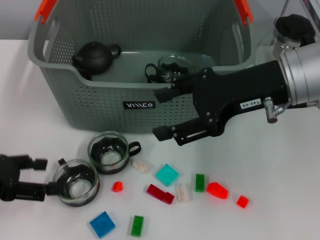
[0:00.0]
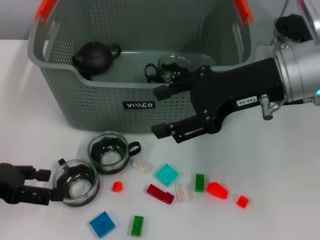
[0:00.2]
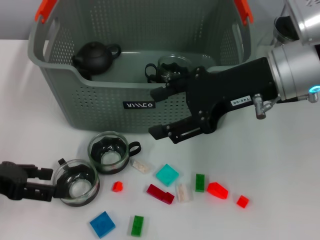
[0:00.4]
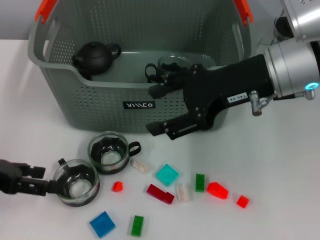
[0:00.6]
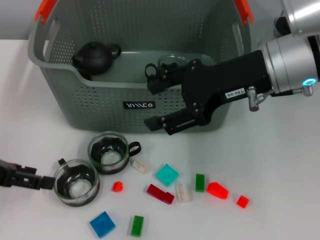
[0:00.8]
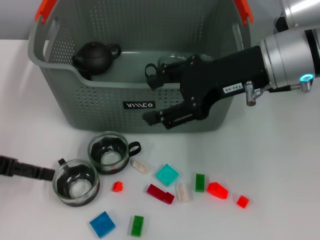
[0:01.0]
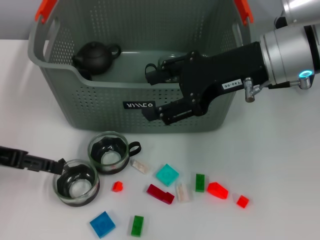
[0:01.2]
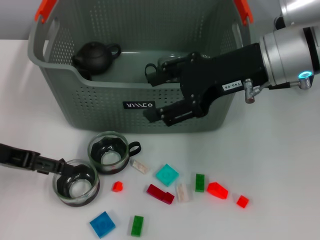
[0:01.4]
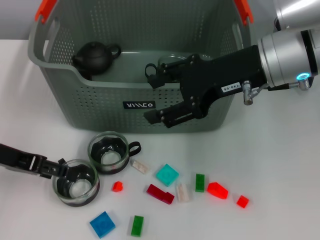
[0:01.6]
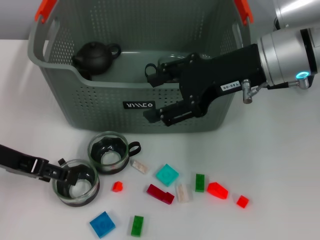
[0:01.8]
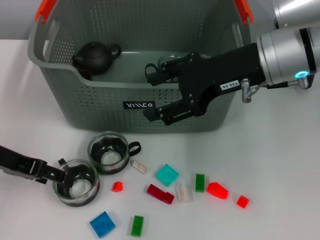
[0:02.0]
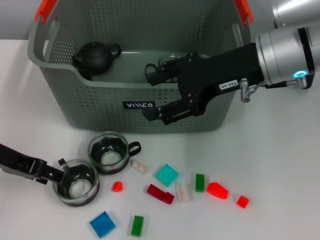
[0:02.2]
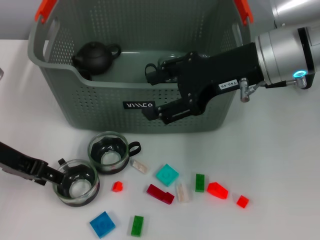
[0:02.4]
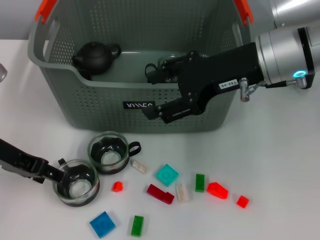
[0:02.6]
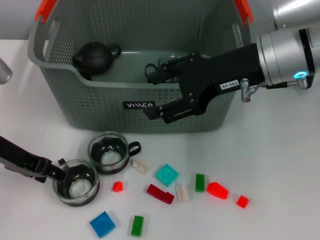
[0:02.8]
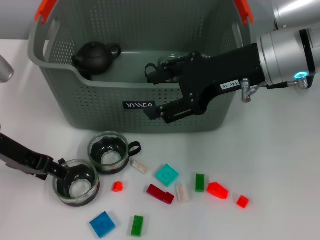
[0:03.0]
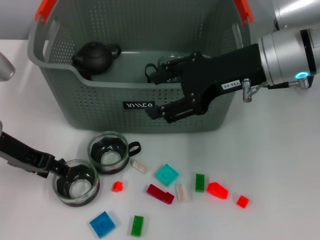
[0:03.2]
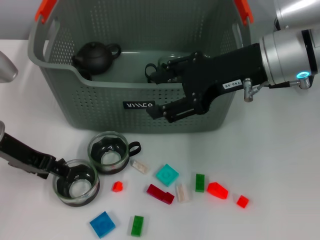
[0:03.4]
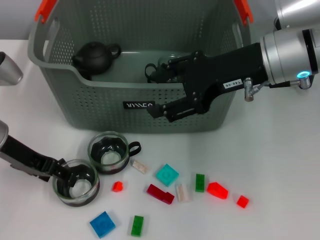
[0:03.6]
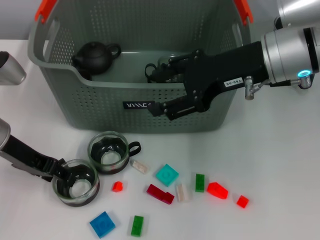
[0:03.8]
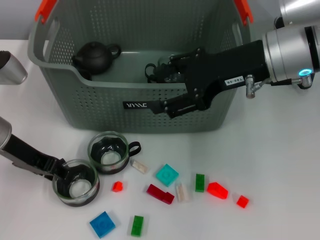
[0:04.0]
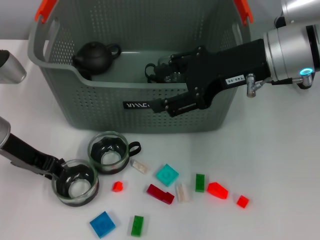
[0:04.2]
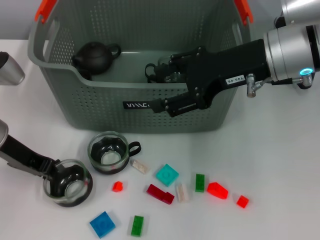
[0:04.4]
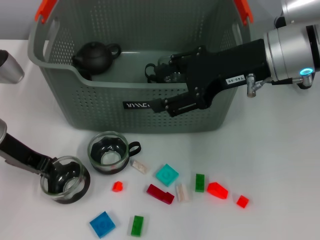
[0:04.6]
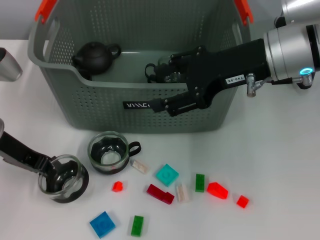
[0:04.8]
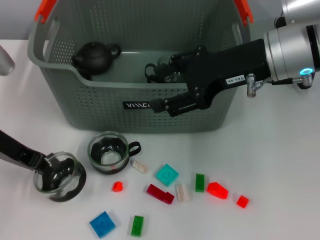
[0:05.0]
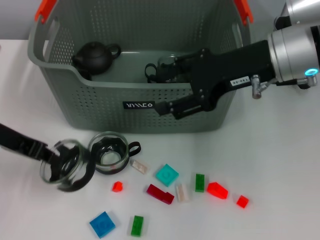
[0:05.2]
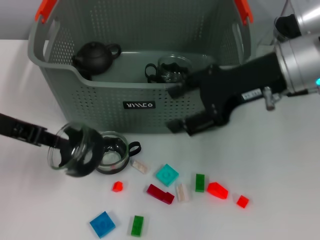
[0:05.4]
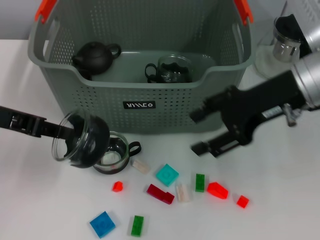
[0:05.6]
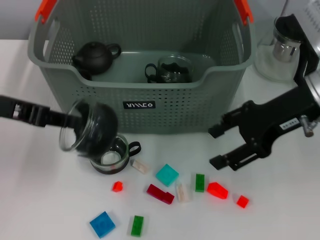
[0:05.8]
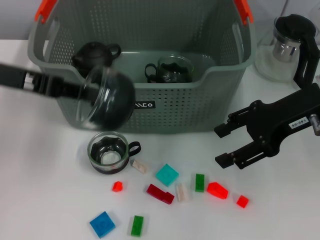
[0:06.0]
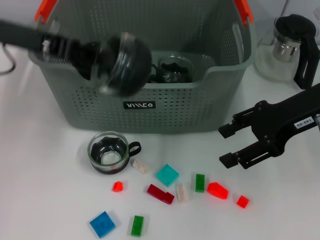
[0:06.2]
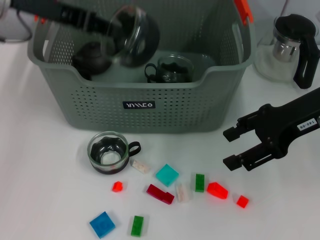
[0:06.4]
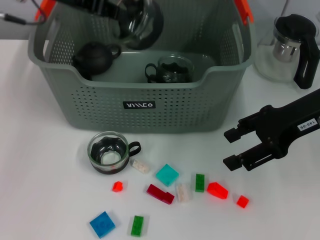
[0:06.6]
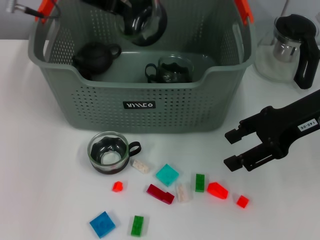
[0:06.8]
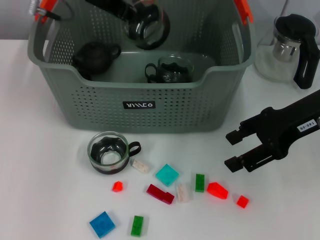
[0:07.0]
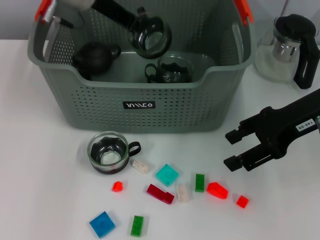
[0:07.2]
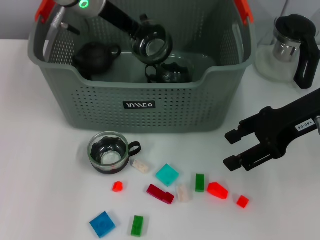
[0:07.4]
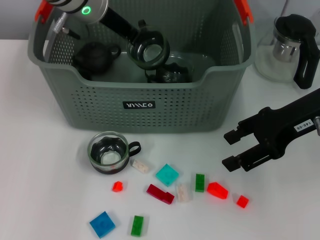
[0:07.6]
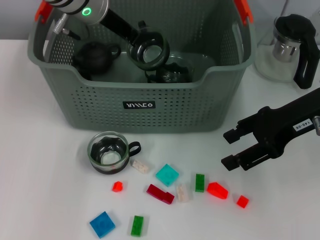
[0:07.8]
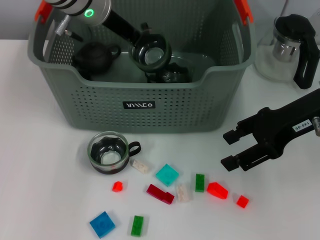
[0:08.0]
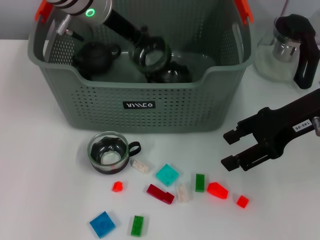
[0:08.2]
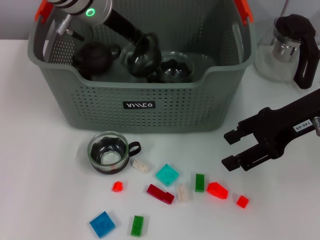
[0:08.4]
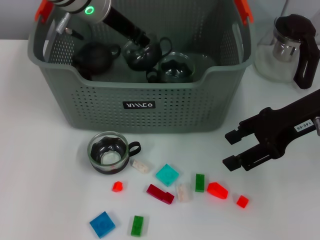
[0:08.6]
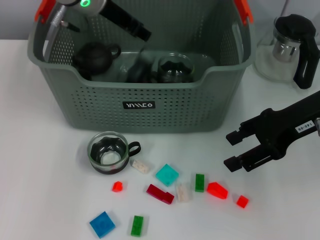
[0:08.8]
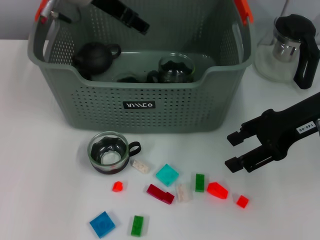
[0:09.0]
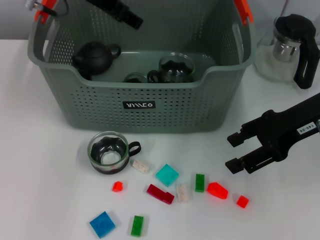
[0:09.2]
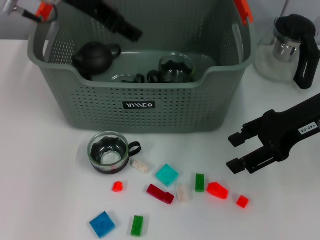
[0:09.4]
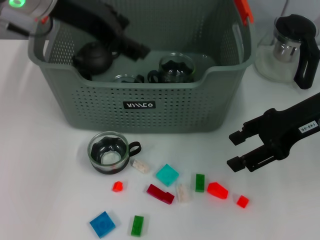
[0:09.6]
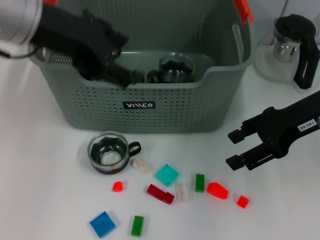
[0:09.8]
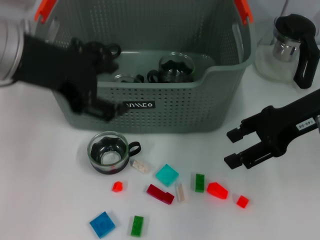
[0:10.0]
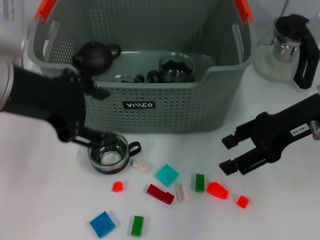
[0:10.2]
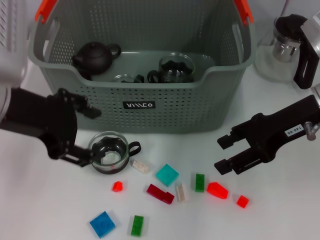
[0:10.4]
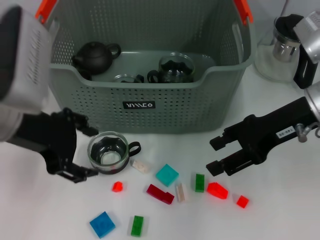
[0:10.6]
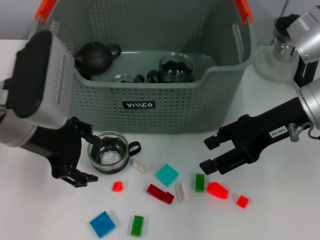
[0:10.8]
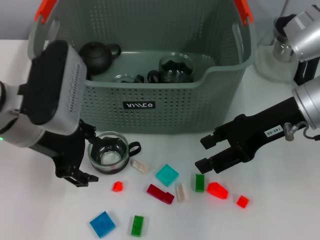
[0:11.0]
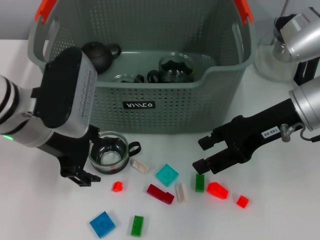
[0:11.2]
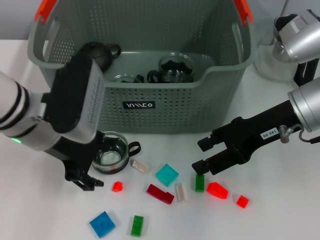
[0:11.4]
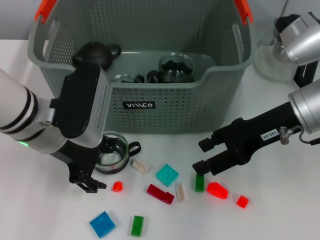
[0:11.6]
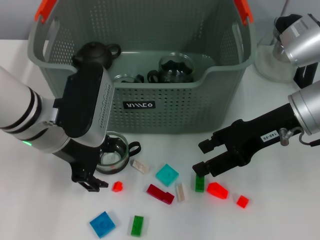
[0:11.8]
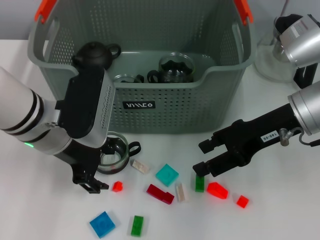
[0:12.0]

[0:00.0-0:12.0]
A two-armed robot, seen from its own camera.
Task of the whole recording: pick up the teacup on the table and place it into the storage bin, pick up the block on the table and place it into the storage bin.
Step, 0.0 to 4.4 s: Grasp the cup with left gripper.
Step, 4.6 to 8.8 s: Place the cup in the storage box with left gripper.
0.0 to 1.6 s: The left gripper is displaced forward by approximately 5 cm.
1.6 to 3.0 s: The grippers make only small movements.
3.0 to 4.4 s: The left gripper closes up.
4.4 to 6.0 s: The left gripper shifts approximately 10 cm upward; the right gripper shifts roughly 5 cm to the right.
6.0 to 7.6 s: The left gripper shifts some 20 cm forward and to the right.
7.6 to 9.0 s: The left gripper opens.
9.0 to 10.4 s: The left gripper is displaced backward and to the left by about 20 cm.
10.4 to 12.0 s: The left gripper shifts some 10 cm downward.

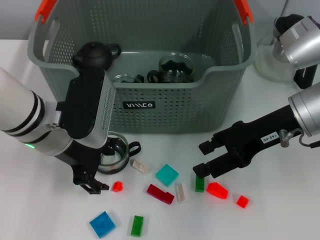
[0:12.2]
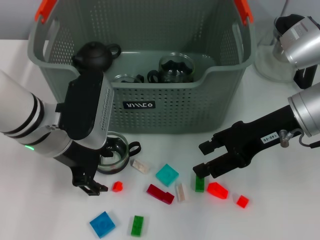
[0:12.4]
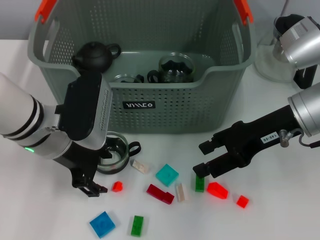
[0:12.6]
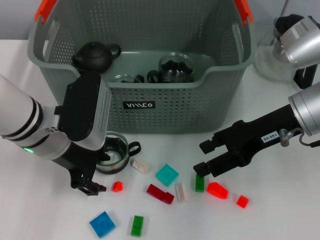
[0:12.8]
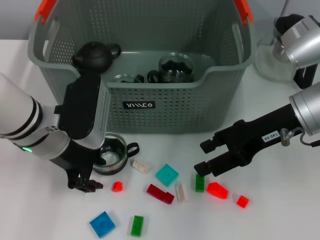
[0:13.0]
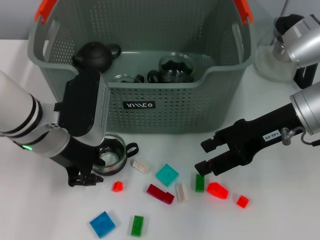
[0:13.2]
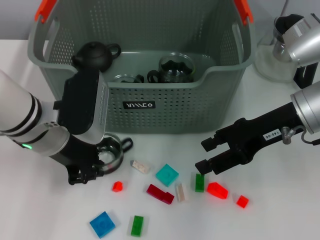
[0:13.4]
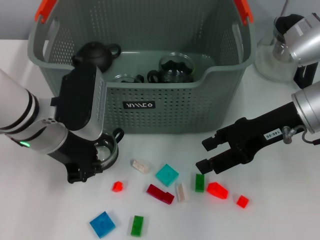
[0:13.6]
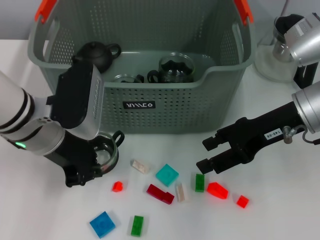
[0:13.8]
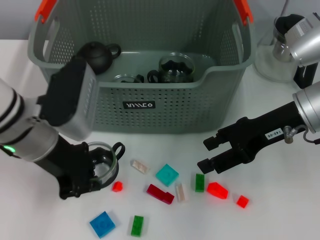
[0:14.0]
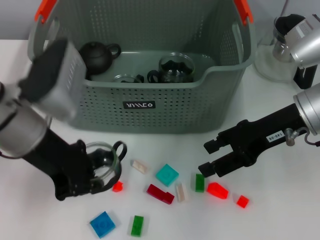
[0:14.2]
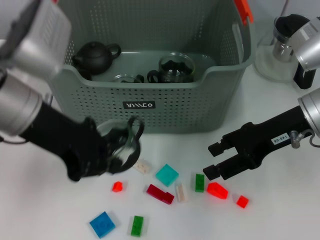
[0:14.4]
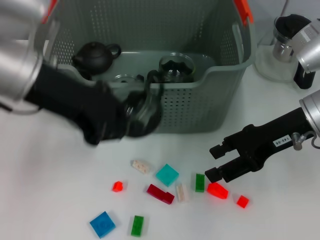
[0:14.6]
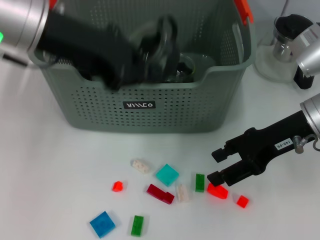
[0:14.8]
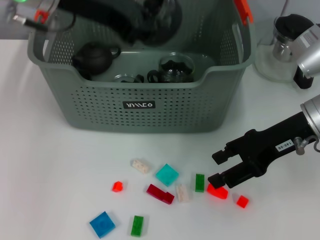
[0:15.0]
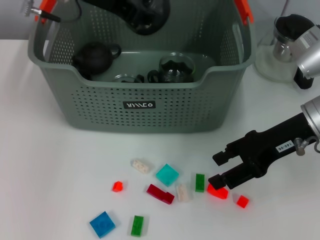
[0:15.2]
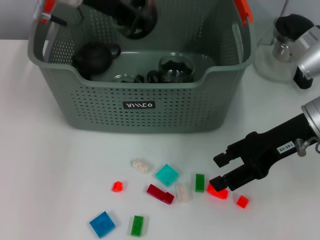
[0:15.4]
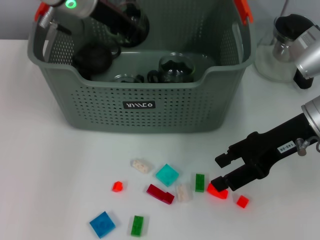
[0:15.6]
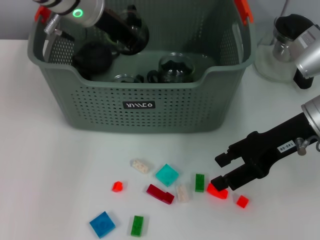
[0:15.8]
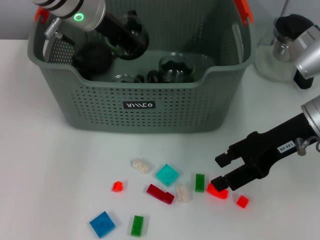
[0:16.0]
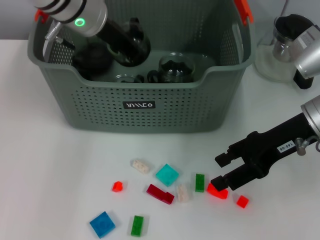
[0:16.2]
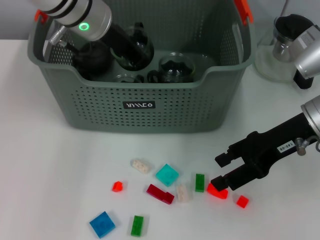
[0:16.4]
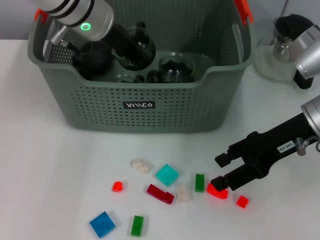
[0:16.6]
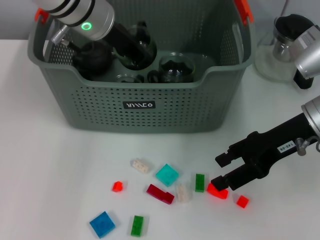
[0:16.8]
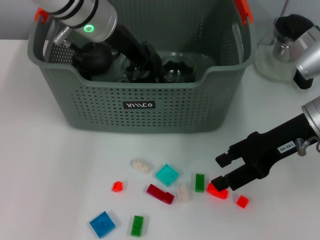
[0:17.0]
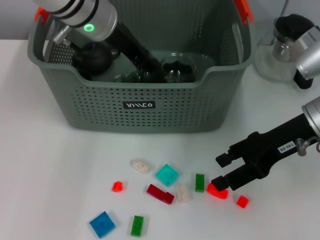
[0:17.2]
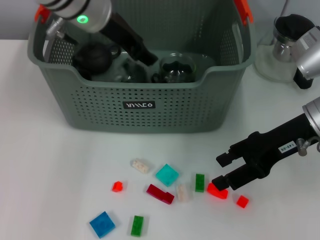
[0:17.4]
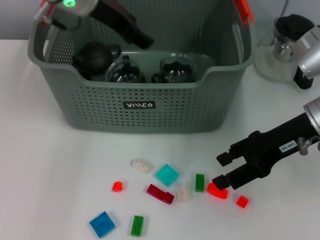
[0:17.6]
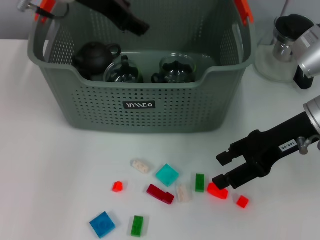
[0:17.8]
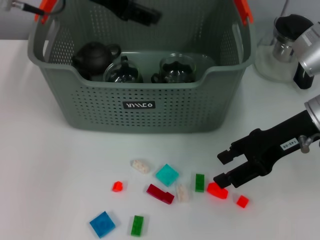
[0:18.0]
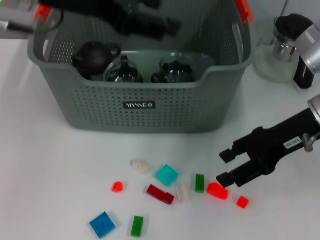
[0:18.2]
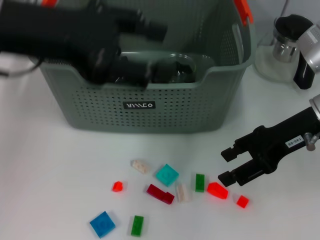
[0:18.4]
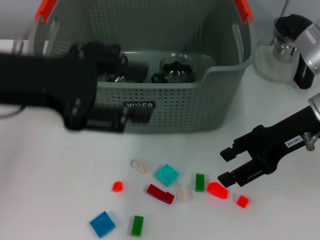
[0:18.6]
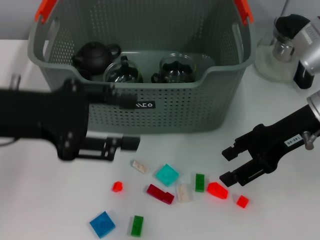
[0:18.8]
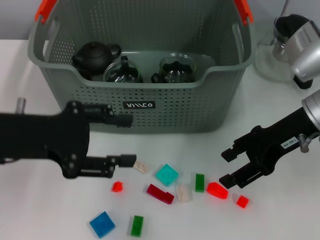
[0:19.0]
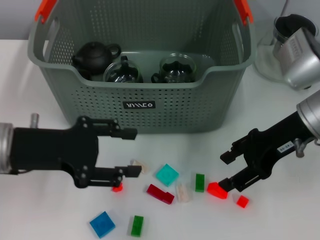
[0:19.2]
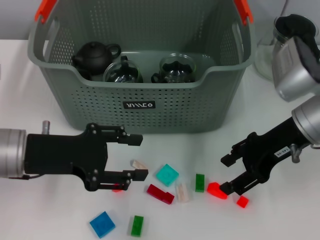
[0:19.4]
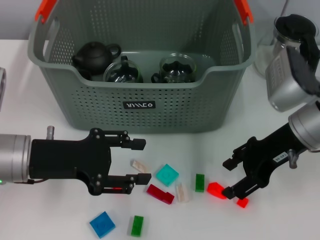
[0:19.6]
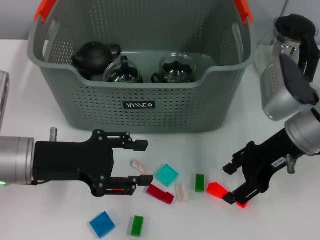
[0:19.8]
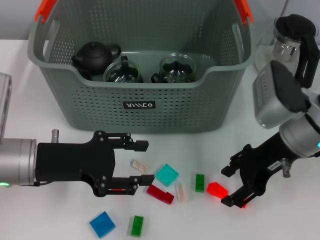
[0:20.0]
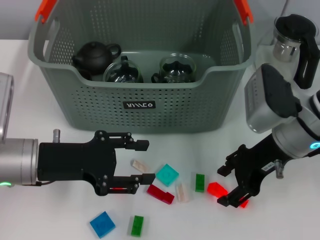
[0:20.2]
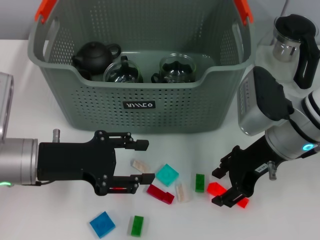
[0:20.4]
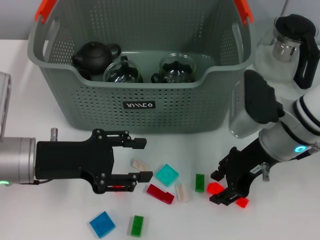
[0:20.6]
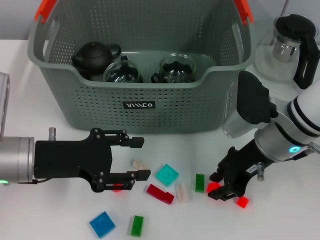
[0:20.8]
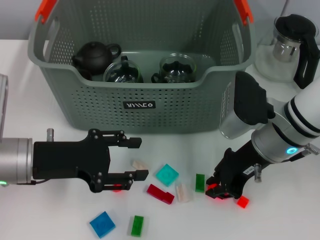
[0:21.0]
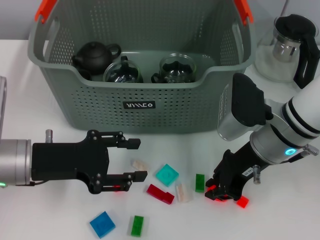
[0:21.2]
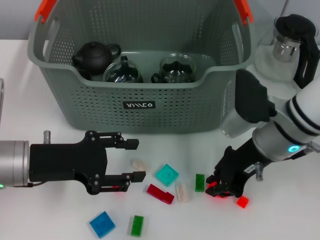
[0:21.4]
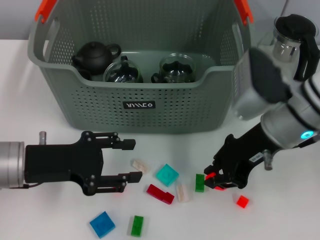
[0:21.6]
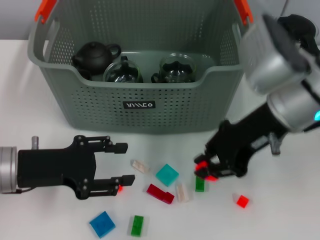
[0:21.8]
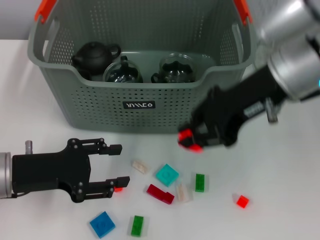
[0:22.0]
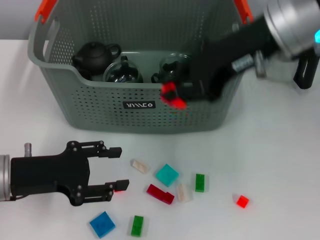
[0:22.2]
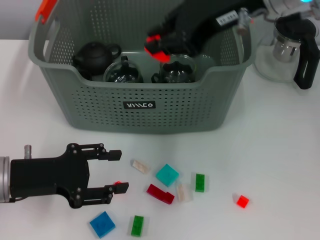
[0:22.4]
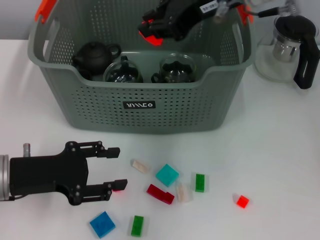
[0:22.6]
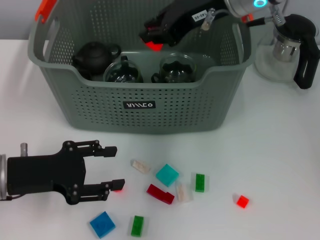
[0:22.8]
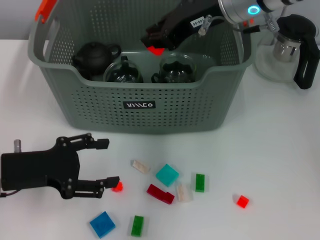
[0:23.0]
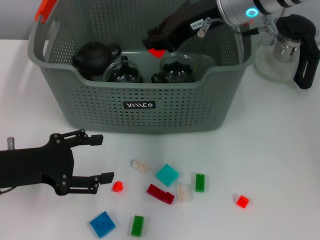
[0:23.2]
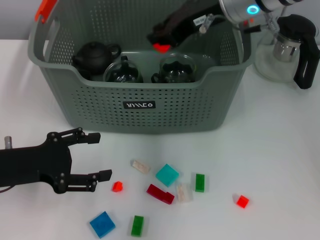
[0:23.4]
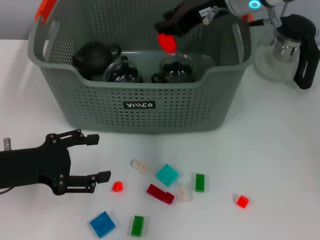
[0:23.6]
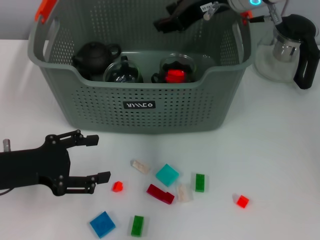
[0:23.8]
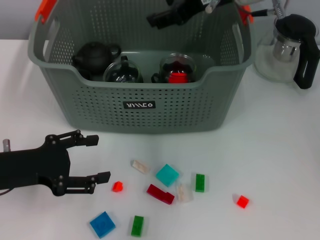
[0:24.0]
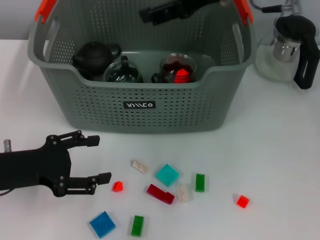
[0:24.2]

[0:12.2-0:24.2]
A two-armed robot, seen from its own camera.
Task of the whole recording: pick up the teacup on the table and place it into the storage bin, pick up the block on the table and place it into the storage bin.
Step, 13.8 to 17.2 s: Place the cup in the storage box with left gripper.
Step, 17.6 to 21.0 s: Grasp the orange block with right gripper.
Step, 21.2 to 23.6 s: Place the orange block in the storage box with right gripper.
12.2 to 13.8 s: The left gripper closes up.
13.8 to 15.2 s: The left gripper heads upward and forward, covering some 15 cm.
15.2 to 16.6 s: The left gripper is displaced downward by some 5 cm.
16.6 to 18.2 s: The left gripper is displaced backward, upward and to the left by roughly 15 cm, and opens its fingers.
18.2 to 19.8 s: The left gripper shifts about 20 cm downward.
19.8 to 21.2 s: The right gripper shifts by some 5 cm, and closes up.
21.2 to 22.6 s: The right gripper is displaced upward by approximately 20 cm.
22.6 to 24.2 s: The right gripper opens up.
